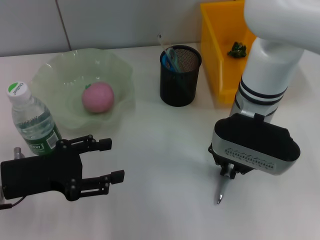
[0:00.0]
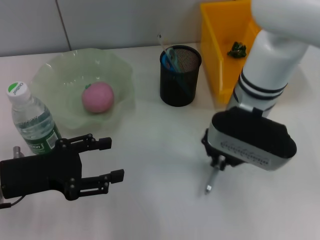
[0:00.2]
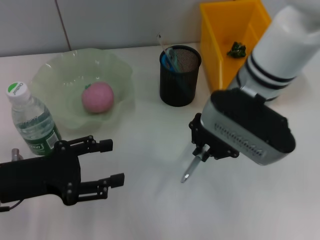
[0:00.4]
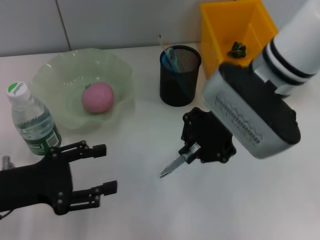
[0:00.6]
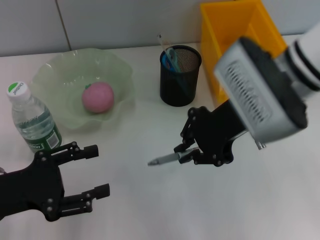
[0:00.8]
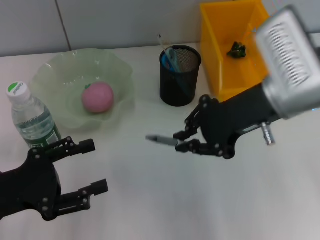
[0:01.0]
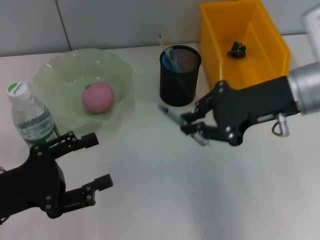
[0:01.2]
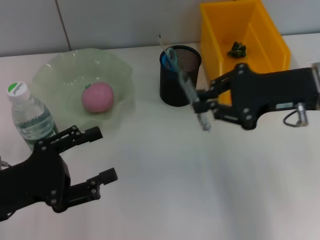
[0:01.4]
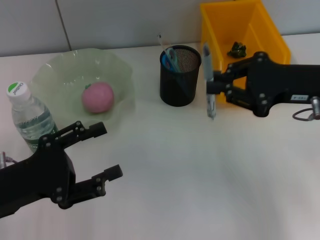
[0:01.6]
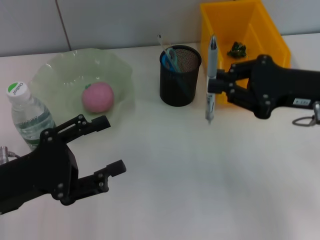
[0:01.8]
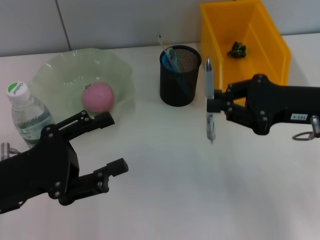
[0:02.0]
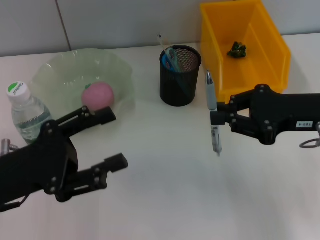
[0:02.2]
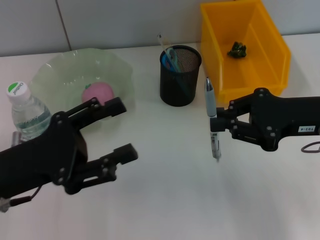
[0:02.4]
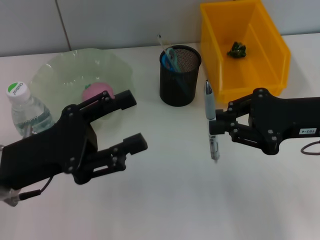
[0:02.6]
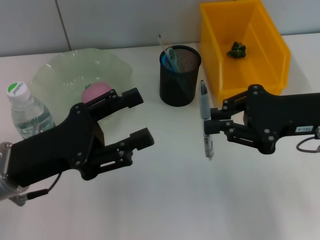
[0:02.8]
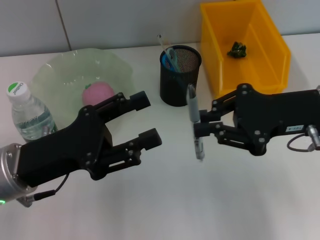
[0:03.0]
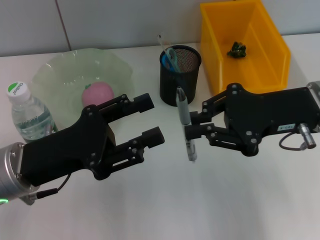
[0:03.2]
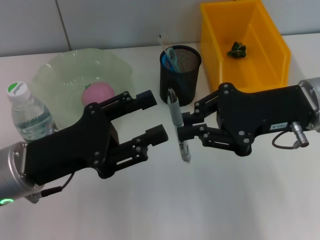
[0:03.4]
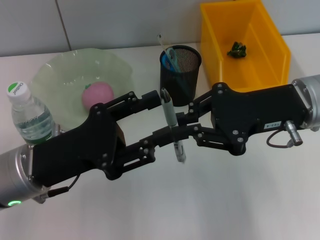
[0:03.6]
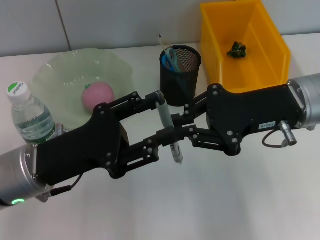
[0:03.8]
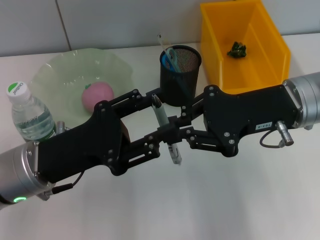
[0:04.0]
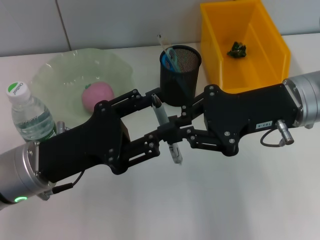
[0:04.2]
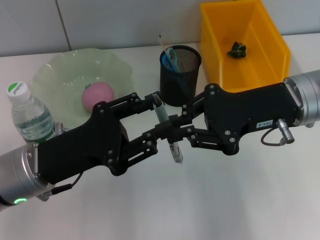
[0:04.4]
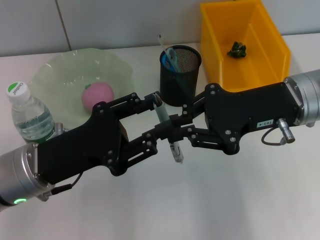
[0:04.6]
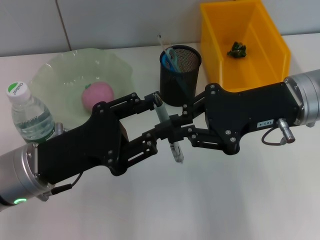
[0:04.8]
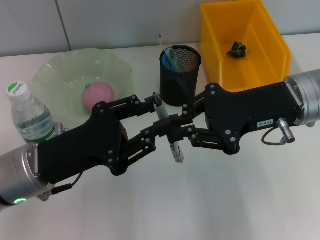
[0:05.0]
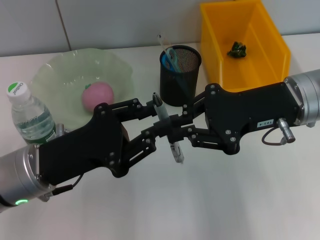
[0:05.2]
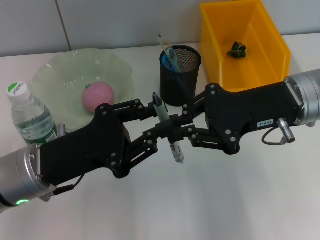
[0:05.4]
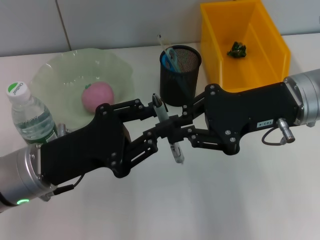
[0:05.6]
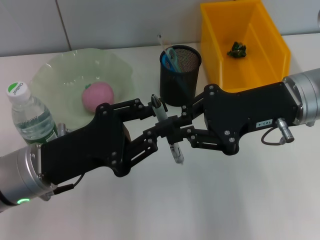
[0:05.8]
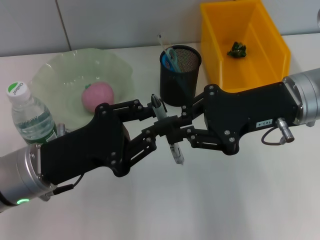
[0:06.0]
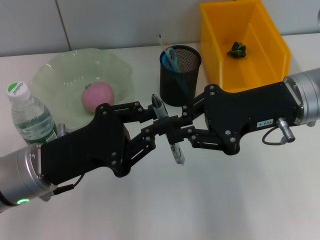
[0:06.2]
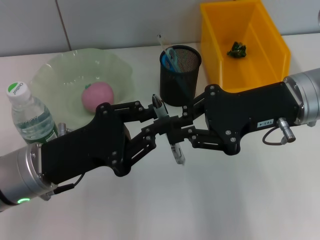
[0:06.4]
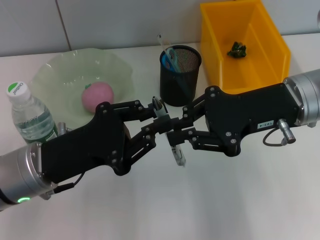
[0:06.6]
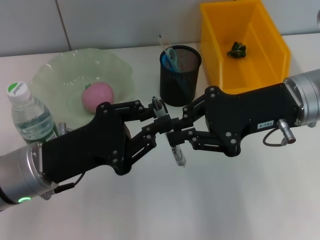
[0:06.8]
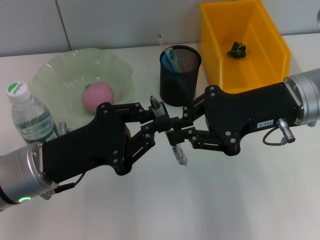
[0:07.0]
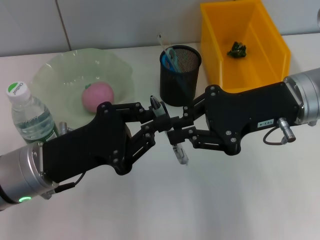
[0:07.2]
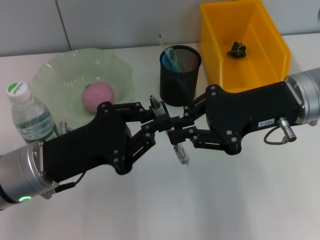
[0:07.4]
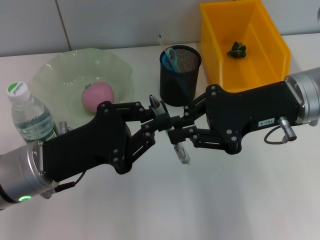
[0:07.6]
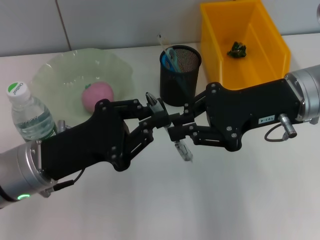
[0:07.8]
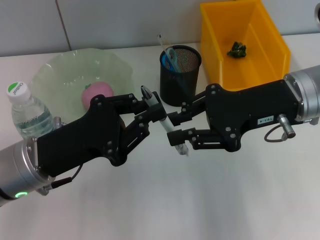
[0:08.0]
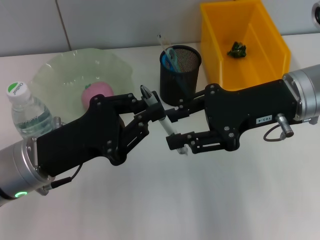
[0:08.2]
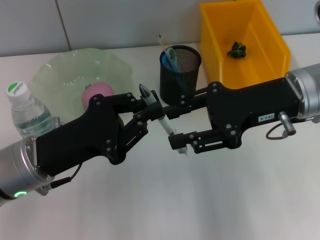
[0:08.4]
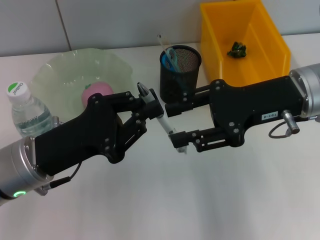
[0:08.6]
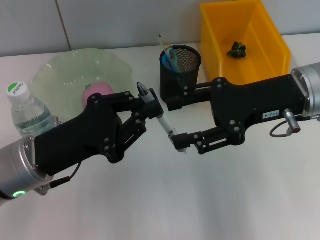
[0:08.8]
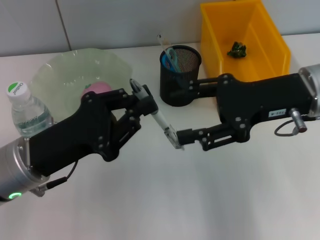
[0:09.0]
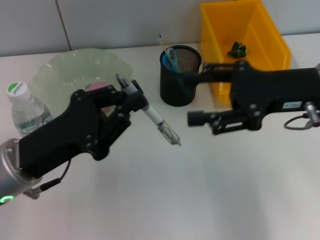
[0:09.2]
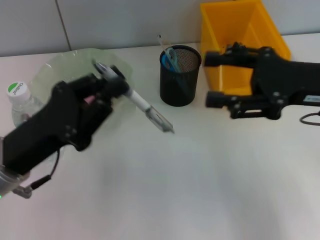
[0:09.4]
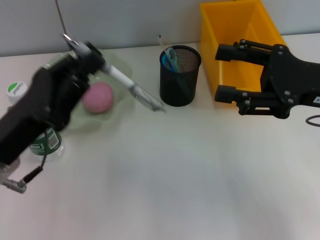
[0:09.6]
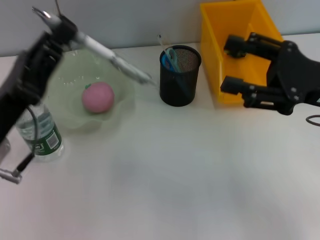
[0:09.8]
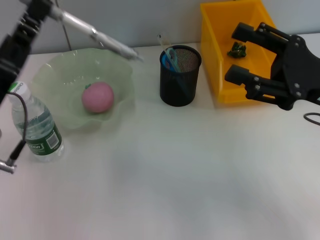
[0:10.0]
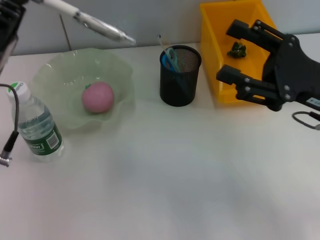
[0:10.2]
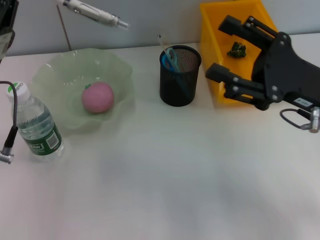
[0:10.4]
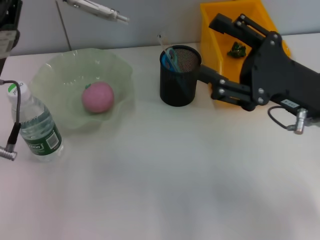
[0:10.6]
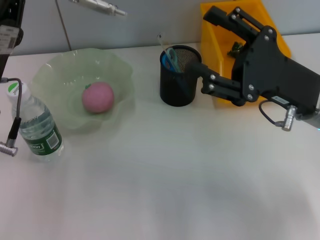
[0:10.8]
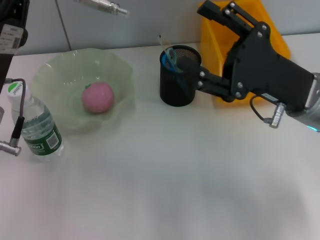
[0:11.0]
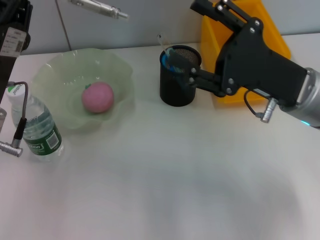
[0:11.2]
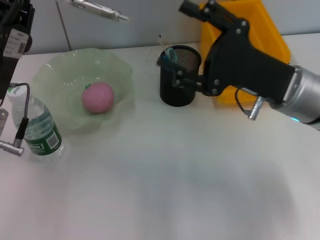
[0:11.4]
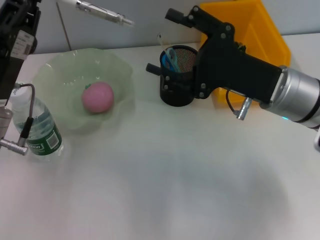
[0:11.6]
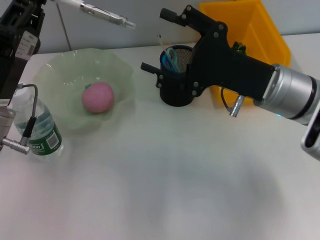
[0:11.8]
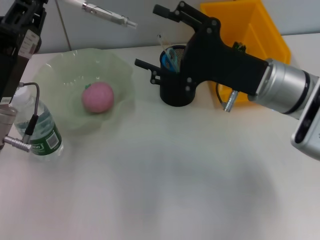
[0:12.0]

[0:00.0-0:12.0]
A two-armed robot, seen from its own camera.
Step, 0:00.0 to 0:08.2: Pass the gray spring-action pen from the right hand to the left hand.
0:00.0 to 0:01.6: The right gripper shifts some 15 cm to the right.
0:01.6 to 0:03.0: The left gripper is displaced to the right by some 5 cm.
0:03.0 to 0:04.4: The grippers move only a little.
0:04.4 to 0:06.0: The left gripper closes up.
0:06.0 to 0:07.6: Both grippers stay put.
0:07.6 to 0:09.0: The right gripper opens.
0:09.0 to 0:10.4: The right gripper shifts by roughly 5 cm.
0:10.4 to 0:12.0: The right gripper moves to the left, about 5 cm.

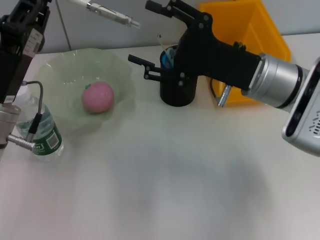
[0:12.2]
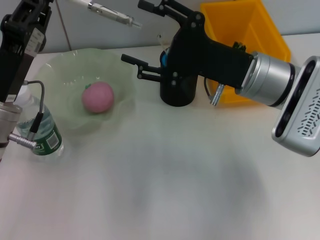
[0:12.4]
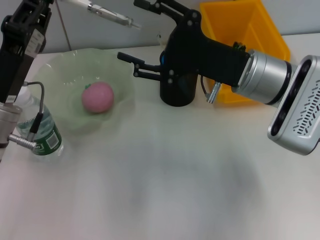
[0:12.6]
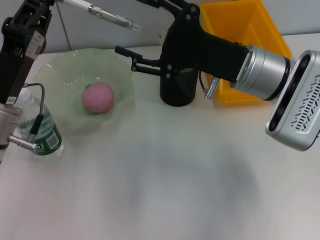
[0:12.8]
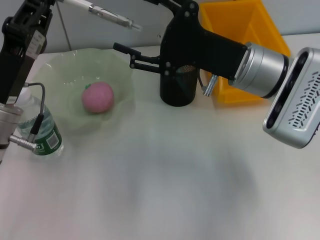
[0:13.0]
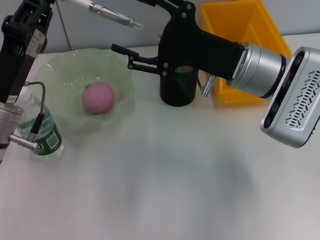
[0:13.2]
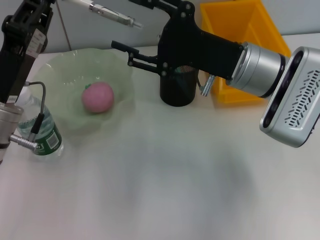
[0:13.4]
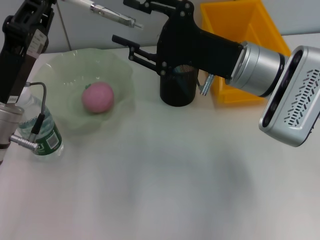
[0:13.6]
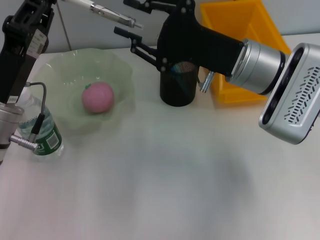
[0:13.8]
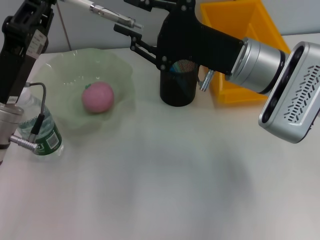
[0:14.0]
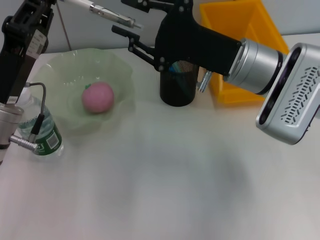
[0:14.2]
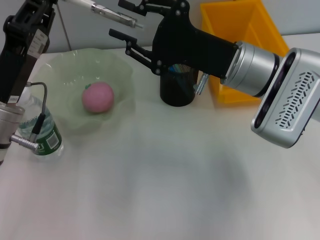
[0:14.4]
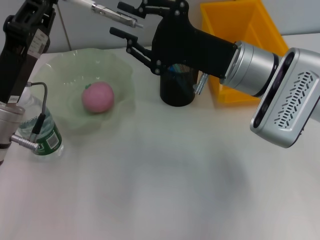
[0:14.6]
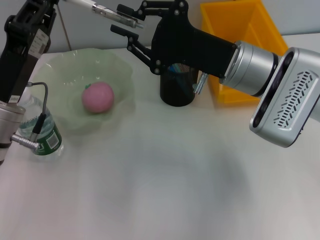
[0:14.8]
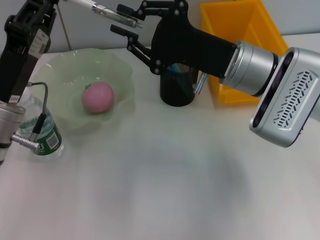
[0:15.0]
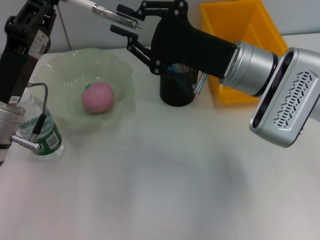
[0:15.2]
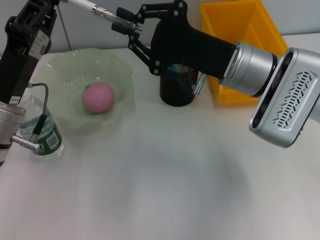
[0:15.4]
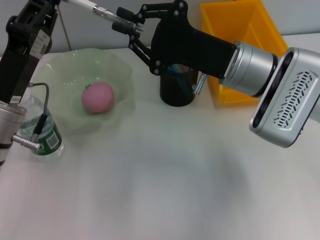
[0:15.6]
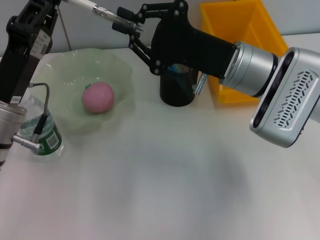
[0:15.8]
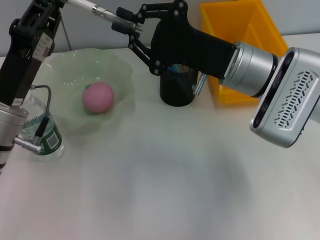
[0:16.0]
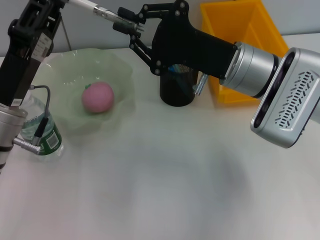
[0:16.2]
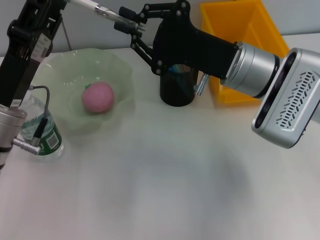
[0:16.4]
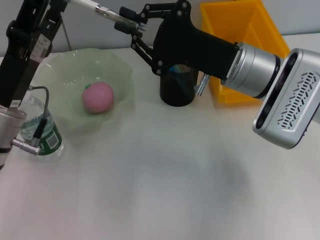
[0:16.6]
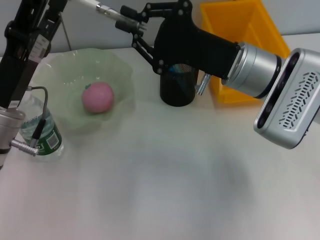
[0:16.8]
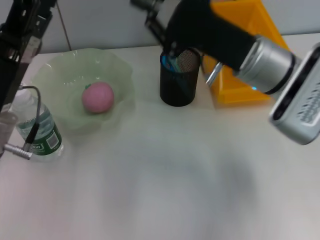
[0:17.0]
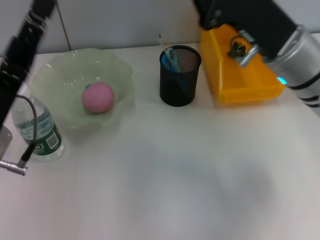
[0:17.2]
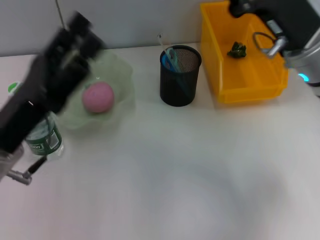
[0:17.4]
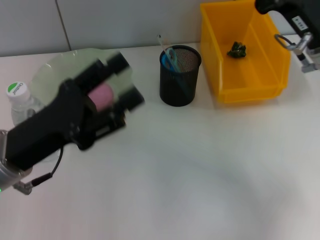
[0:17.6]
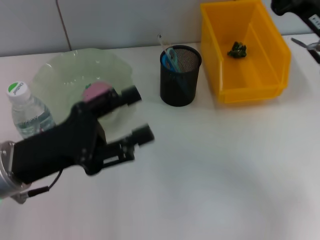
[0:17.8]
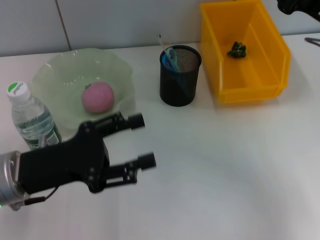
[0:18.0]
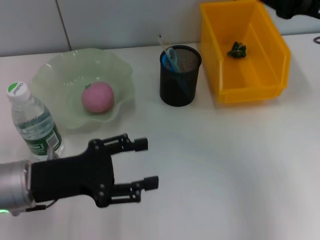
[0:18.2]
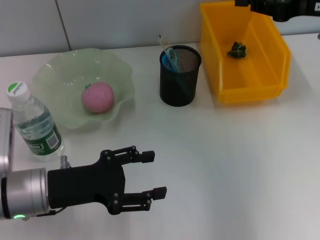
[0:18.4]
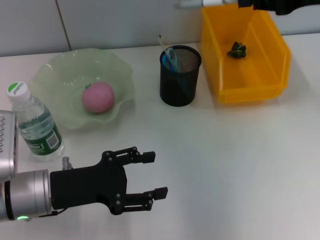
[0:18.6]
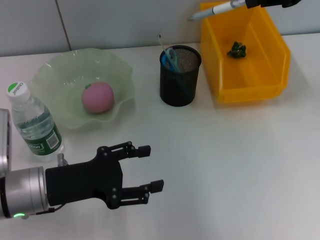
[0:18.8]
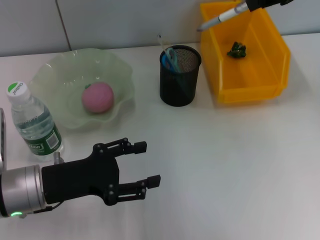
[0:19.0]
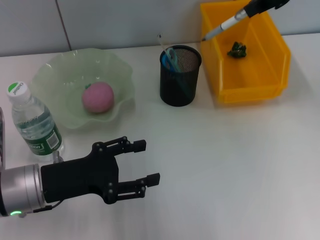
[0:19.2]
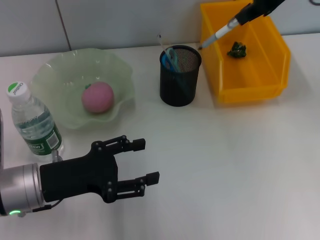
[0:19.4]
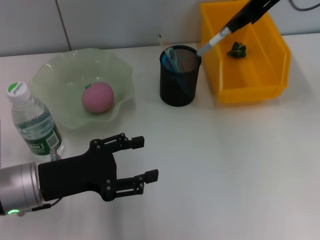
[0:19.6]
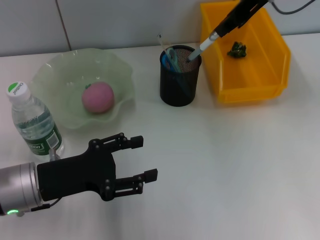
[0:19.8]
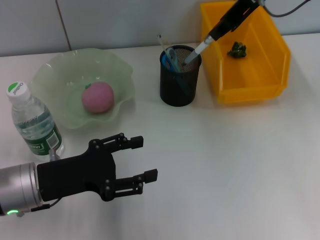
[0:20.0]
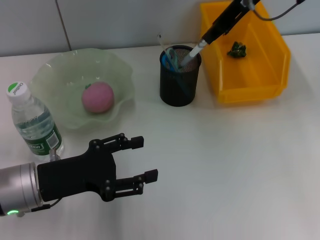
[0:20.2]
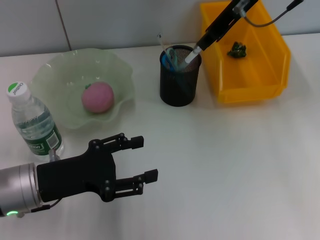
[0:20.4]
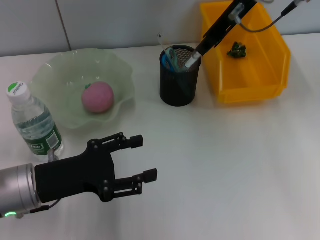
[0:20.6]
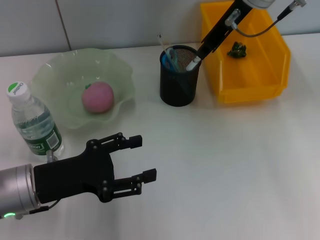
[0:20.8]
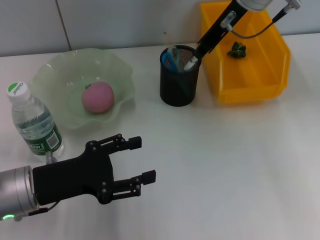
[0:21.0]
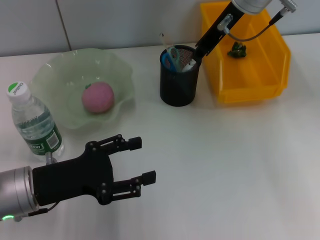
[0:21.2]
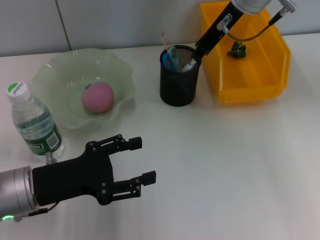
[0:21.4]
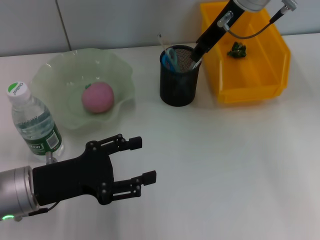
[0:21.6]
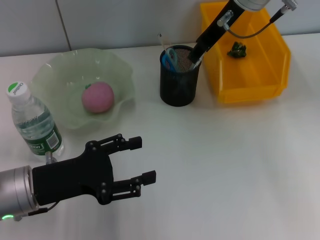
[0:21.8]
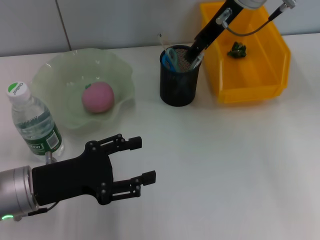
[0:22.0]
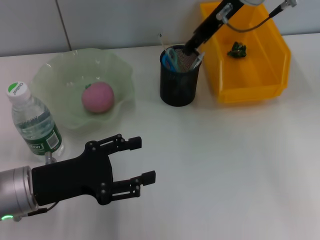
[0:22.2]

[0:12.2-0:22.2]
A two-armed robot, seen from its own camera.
Step, 0:12.2 to 0:16.6: Pass the gray spring-action pen from the left hand to the right hand.
Step, 0:16.8 to 0:21.8: Place the gray spring-action pen into the pen holder with the right hand.
0:12.2 to 0:13.6: The grippers make only small movements.
0:13.6 to 0:15.0: The right gripper closes up.
0:15.0 to 0:16.4: The left gripper opens up.
0:16.4 to 0:18.0: The right gripper heads to the right and upward, covering approximately 15 cm, while the left gripper opens its fingers.
0:18.0 to 0:19.4: The right gripper moves upward, forward and to the left, some 15 cm.
0:19.4 to 0:20.8: The right gripper is displaced to the left and downward by about 10 cm.
0:20.8 to 0:22.2: The right gripper opens up.
